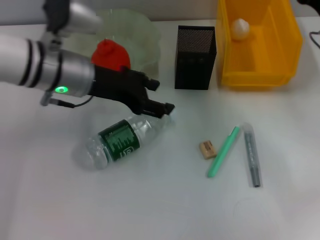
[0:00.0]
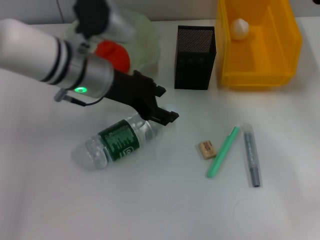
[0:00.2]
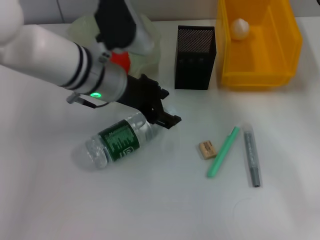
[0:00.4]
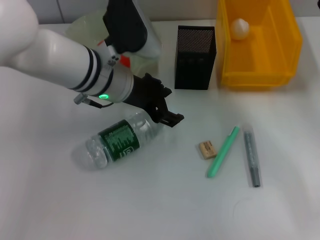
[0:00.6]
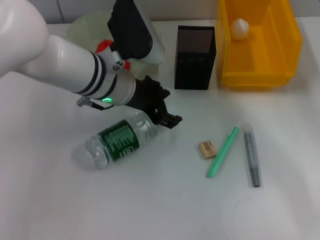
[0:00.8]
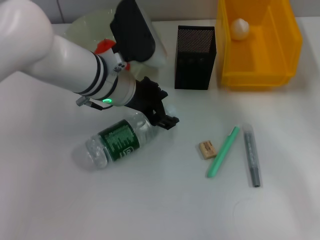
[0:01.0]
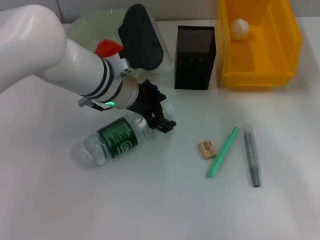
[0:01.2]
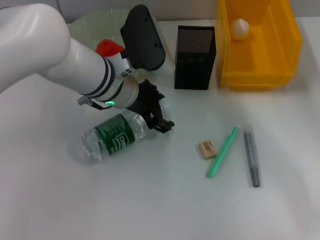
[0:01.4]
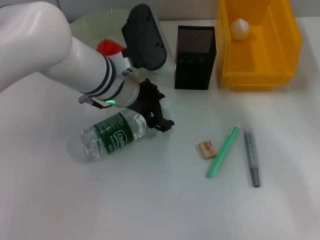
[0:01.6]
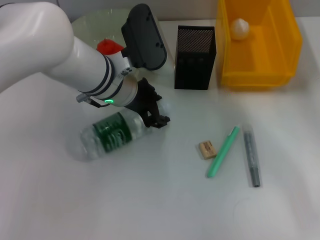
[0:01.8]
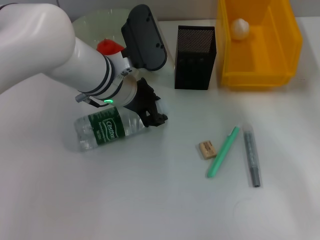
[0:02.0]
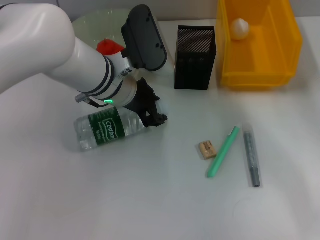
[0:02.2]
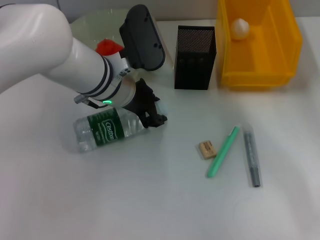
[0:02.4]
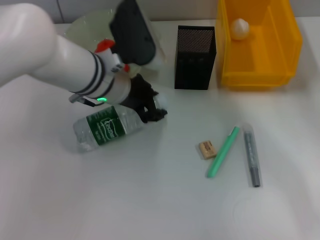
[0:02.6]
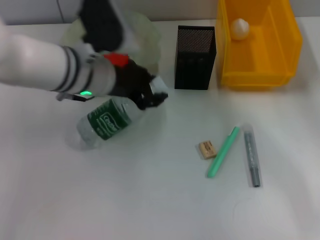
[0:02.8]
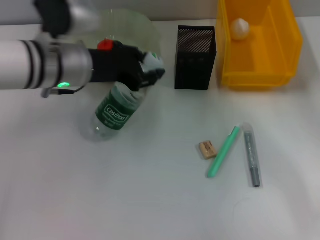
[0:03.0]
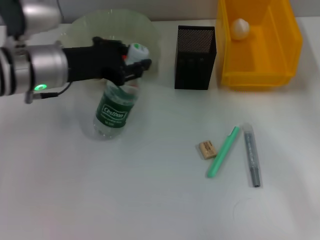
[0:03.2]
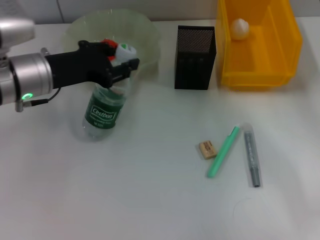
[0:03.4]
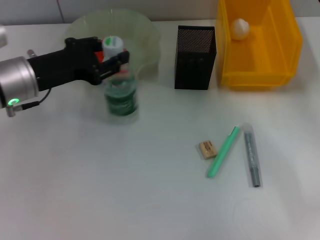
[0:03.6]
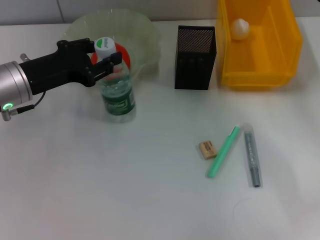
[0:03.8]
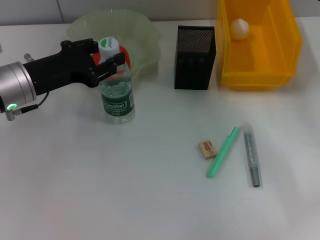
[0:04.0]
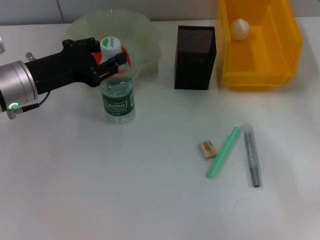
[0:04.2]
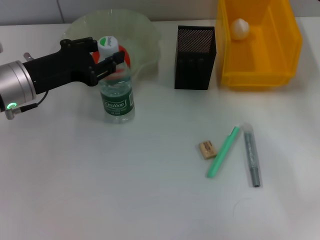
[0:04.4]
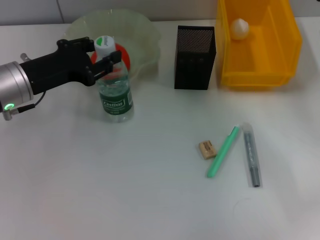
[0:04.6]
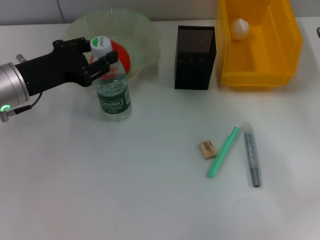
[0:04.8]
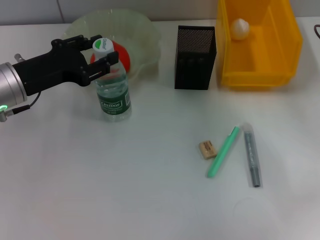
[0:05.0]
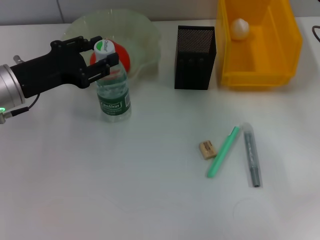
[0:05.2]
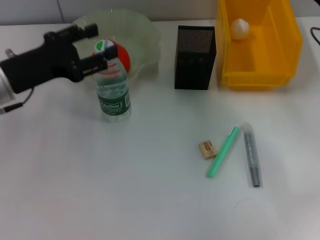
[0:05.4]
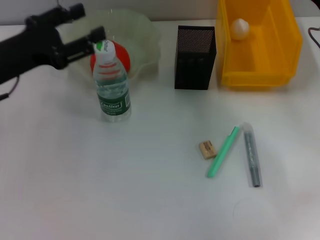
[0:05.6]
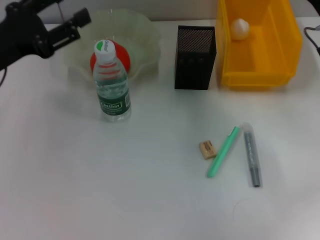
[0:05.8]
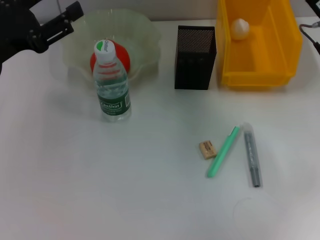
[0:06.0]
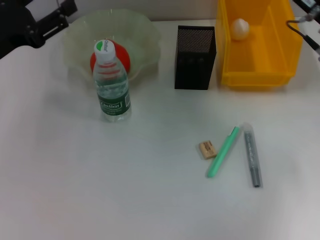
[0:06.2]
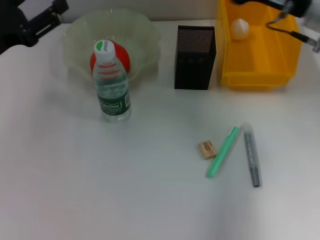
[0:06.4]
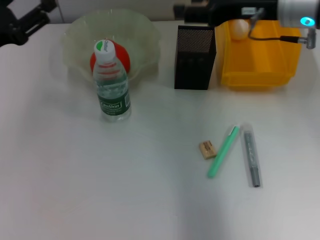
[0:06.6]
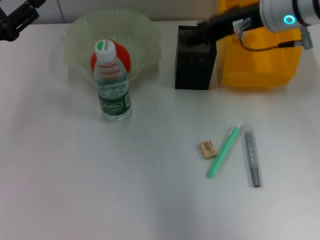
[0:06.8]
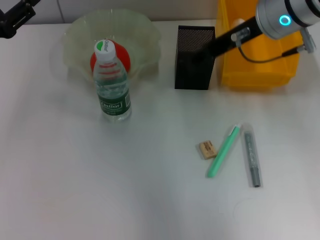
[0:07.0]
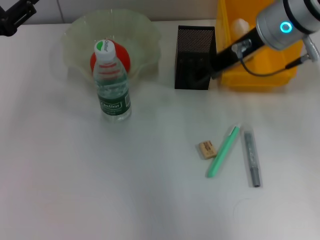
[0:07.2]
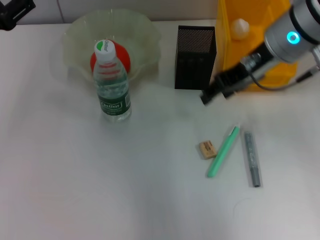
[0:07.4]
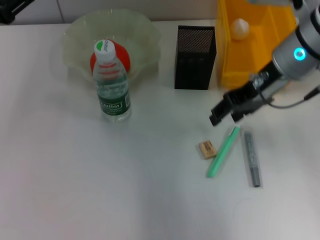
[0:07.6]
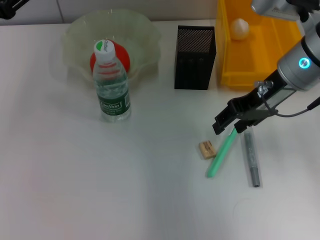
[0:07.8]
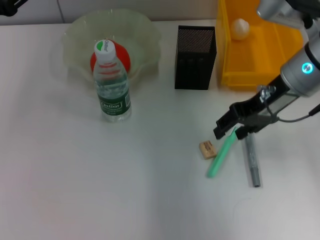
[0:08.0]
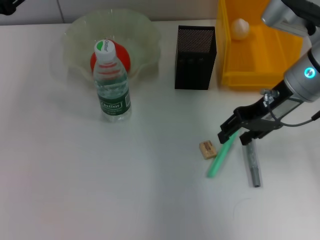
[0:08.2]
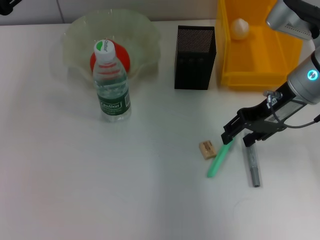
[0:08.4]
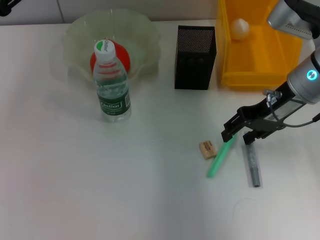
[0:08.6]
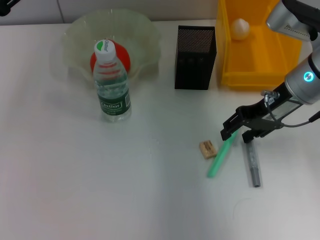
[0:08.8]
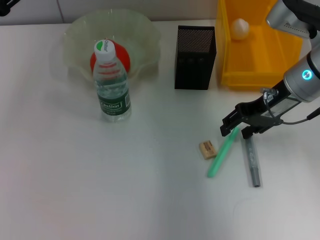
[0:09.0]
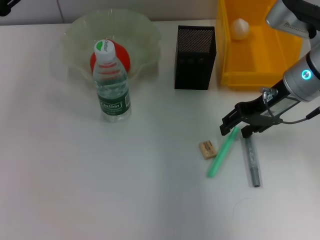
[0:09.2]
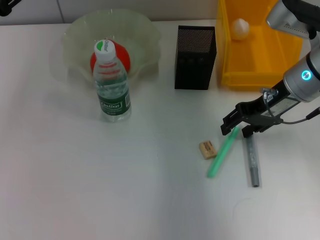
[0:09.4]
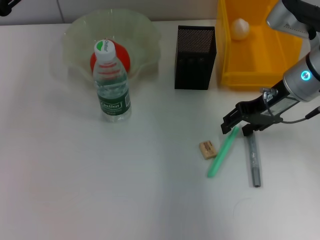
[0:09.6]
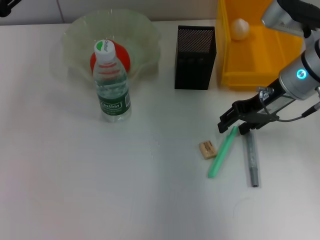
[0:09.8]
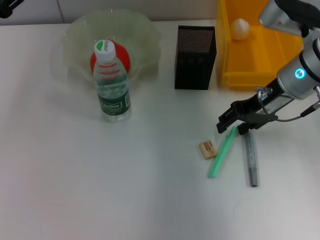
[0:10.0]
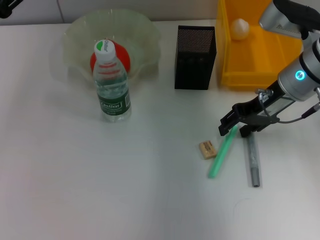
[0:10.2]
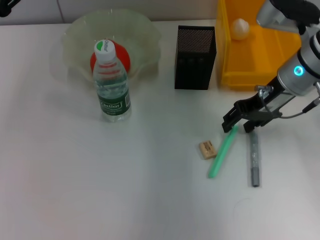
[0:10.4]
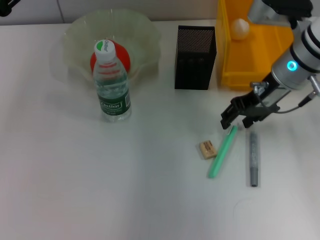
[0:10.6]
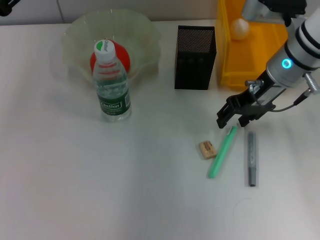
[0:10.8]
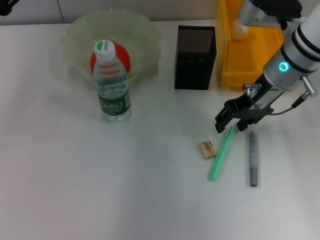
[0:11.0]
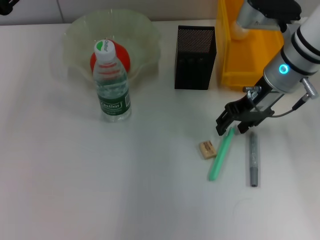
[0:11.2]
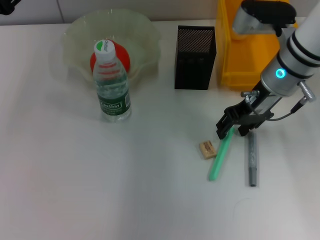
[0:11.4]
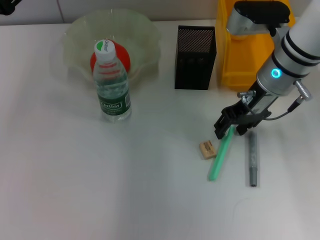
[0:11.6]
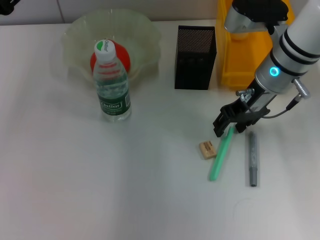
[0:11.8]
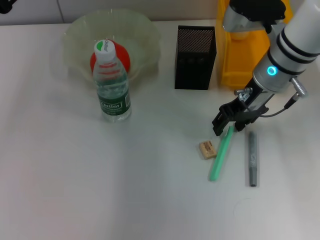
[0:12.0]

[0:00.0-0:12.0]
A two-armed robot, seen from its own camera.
Step, 0:00.0 to 0:02.0: Grab the water bottle with the left hand.
Step, 0:02.2 to 0:05.0: Place the water bottle on the table with the left hand.
0:00.0 to 0:01.6: The left gripper moves to the right, about 5 cm.
0:01.6 to 0:03.0: The left gripper heads to the left, covering roughly 5 cm, and closes up.
0:03.0 to 0:04.4: The left gripper shifts some 10 cm to the left.
0:04.4 to 0:06.0: The left gripper ends up approximately 5 cm from where it was.
0:06.0 to 0:07.6: The right gripper goes some 10 cm to the left.
0:07.6 to 0:09.0: The right gripper ends up approximately 5 cm from where it was.
0:09.0 to 0:12.0: The grippers stay close to where they were, moving slightly.

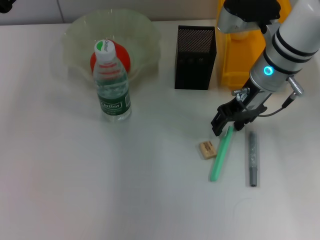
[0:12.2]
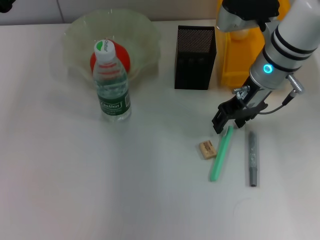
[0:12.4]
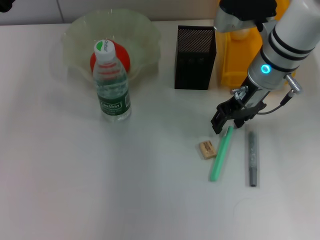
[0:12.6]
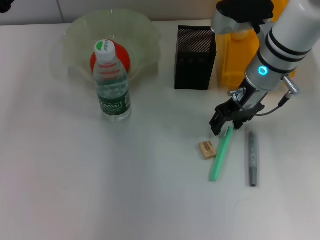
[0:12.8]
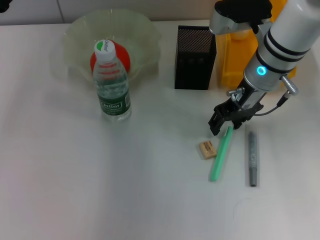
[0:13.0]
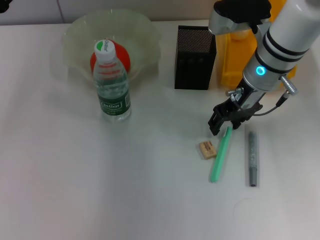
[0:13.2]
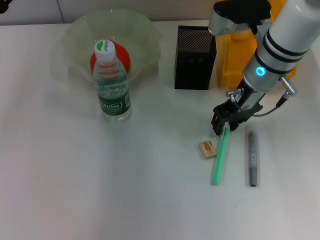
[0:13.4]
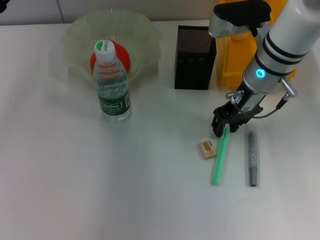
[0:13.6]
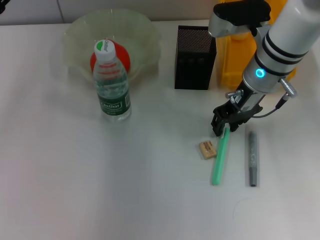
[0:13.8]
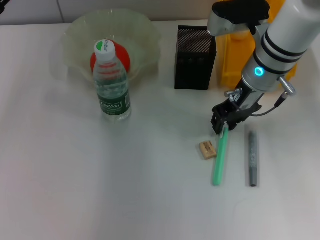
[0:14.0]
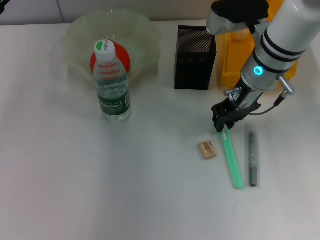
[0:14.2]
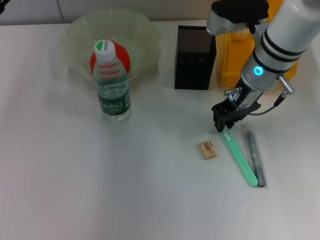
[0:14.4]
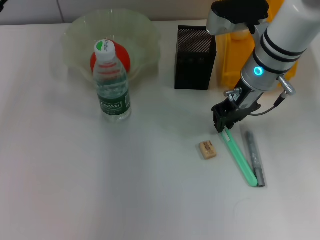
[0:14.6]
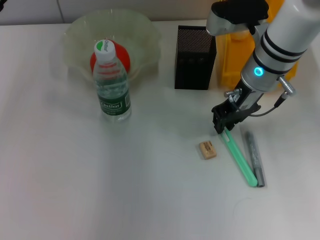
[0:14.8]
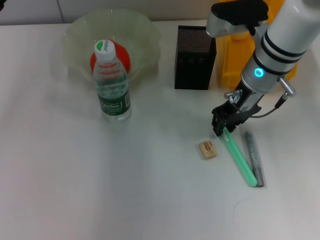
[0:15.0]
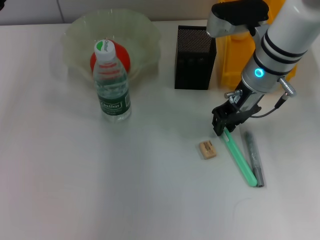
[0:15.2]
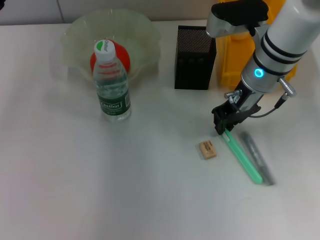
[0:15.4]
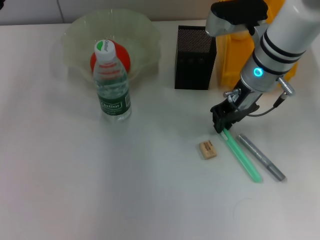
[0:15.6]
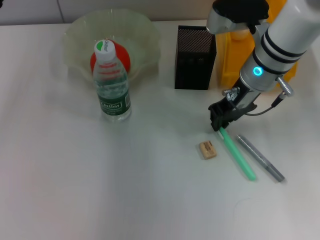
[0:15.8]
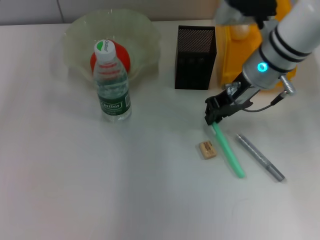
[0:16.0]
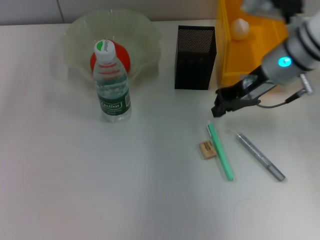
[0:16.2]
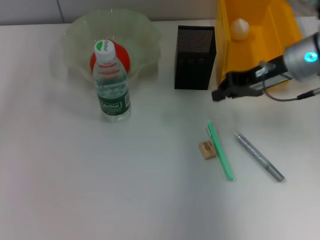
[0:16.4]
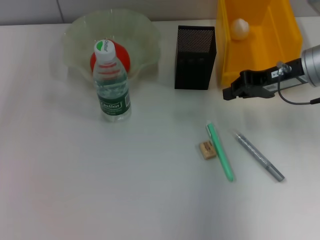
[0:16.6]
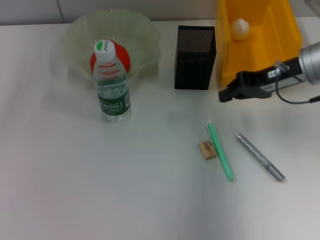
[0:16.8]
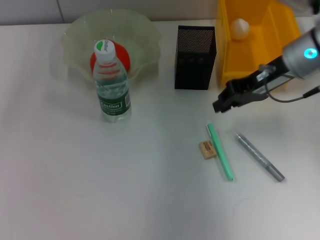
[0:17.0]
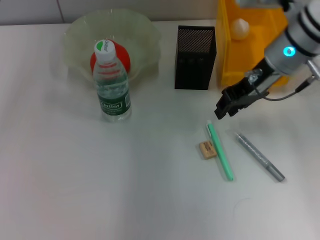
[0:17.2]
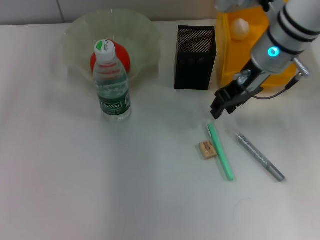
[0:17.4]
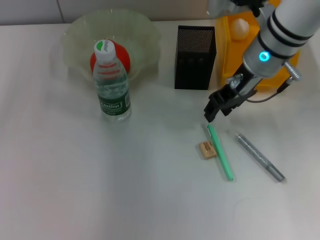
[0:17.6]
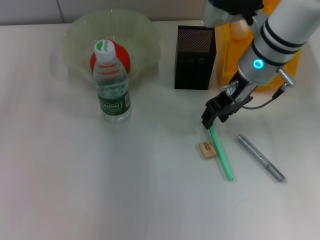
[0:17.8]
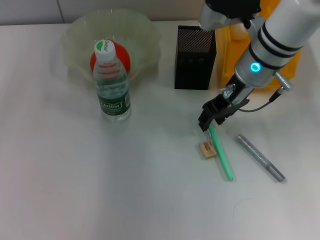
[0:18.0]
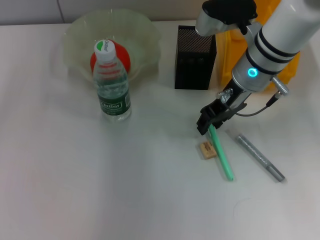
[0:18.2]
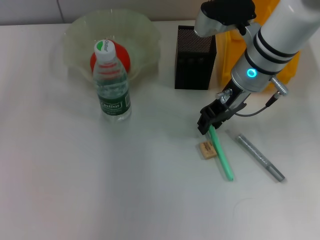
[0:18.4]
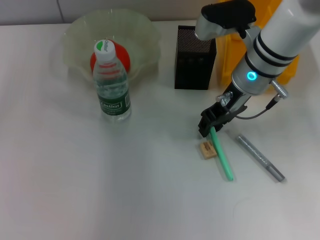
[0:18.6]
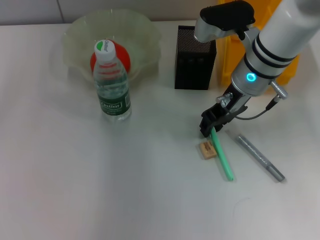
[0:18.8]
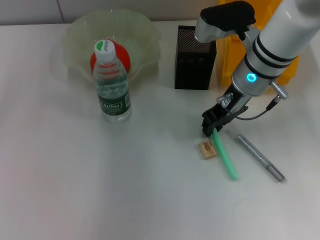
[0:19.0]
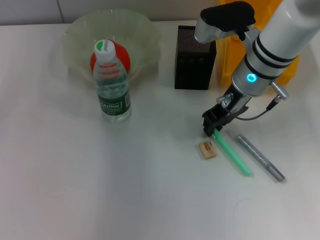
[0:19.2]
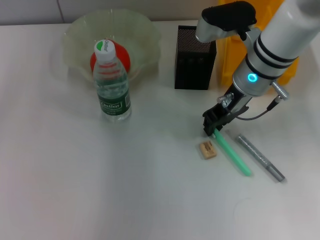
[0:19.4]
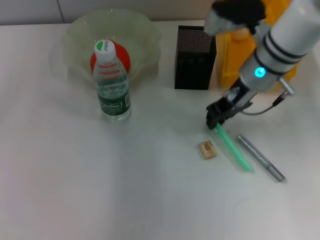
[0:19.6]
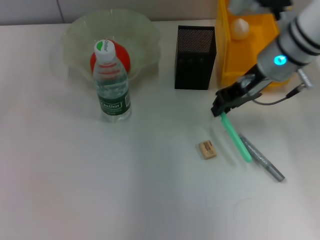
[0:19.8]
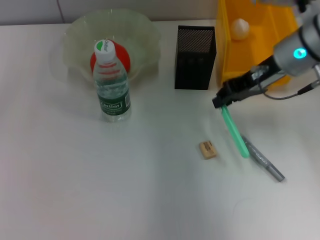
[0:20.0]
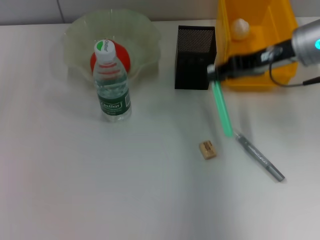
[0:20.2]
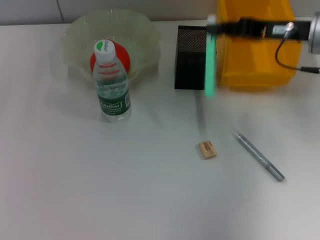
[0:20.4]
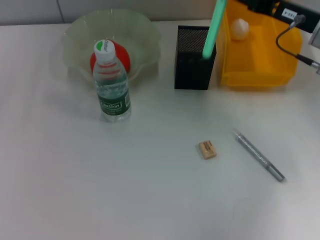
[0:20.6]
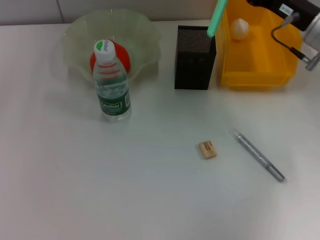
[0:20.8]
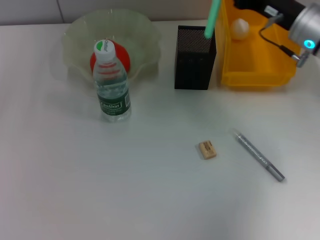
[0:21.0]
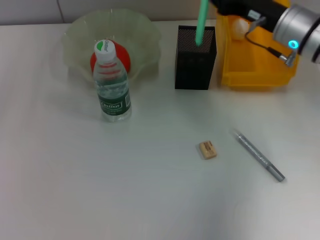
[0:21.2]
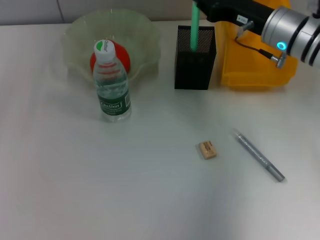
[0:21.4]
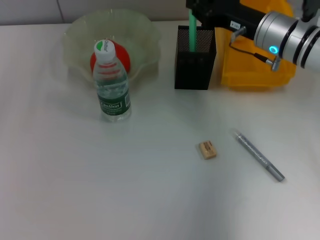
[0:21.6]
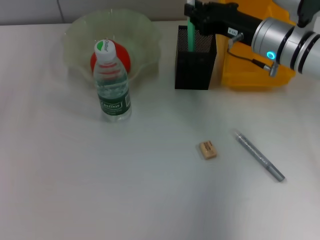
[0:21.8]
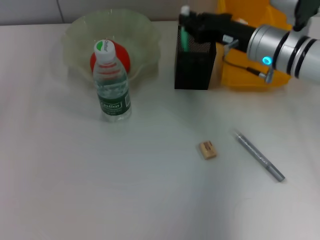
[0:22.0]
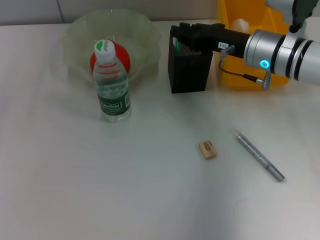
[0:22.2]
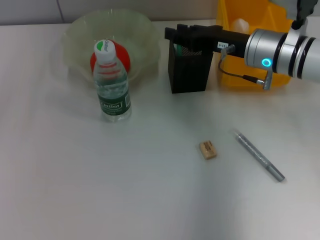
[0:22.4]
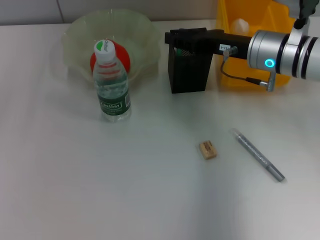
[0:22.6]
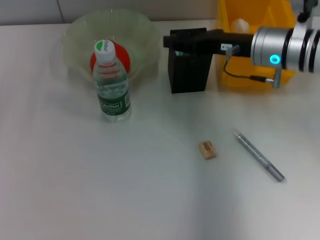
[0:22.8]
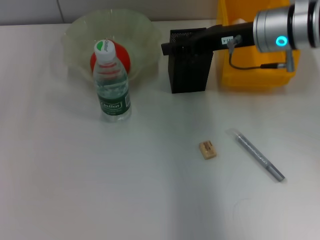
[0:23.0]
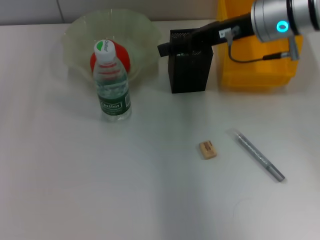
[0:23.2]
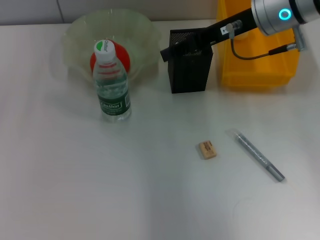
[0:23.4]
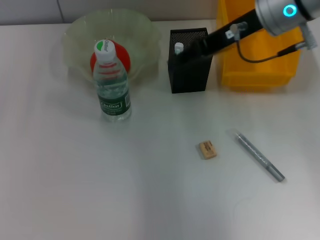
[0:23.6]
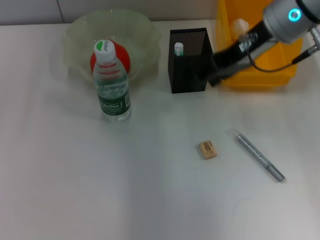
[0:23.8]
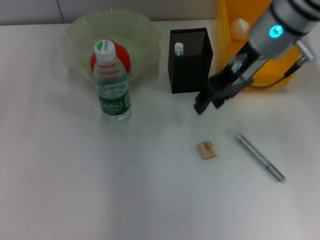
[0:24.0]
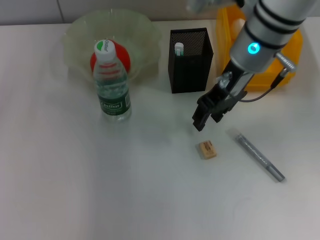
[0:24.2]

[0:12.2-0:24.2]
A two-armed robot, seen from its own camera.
Step, 0:12.2 to 0:19.0: Grab the blue utility knife with the right hand.
Step, 0:19.2 to 0:23.0: Place the blue utility knife into the pen holder with the right hand.
0:12.2 to 0:15.2: Both grippers stay put.
0:15.2 to 0:16.6: The right gripper travels to the right by approximately 10 cm.
0:16.6 to 0:18.2: The right gripper moves to the left, some 10 cm, and opens.
0:18.2 to 0:19.8: The right gripper closes up.
0:21.2 to 0:22.6: The right gripper opens up.
0:22.6 to 0:24.2: The right gripper travels upward and to the left by roughly 10 cm.
